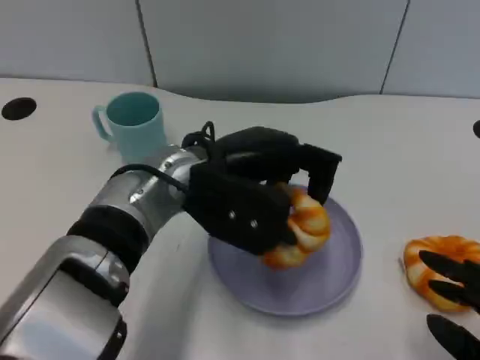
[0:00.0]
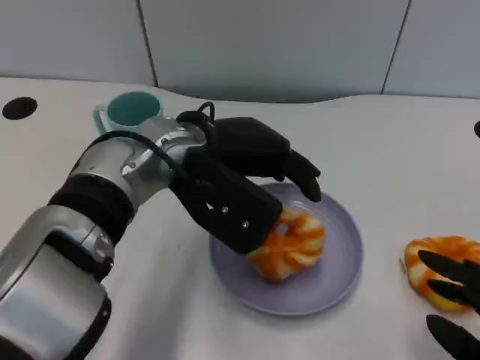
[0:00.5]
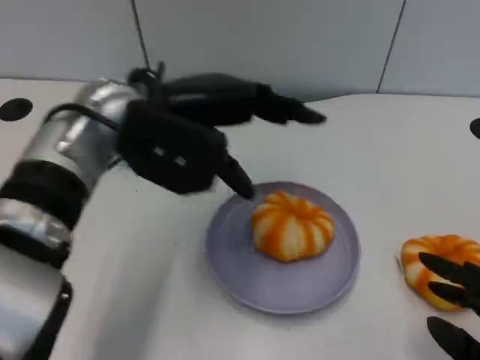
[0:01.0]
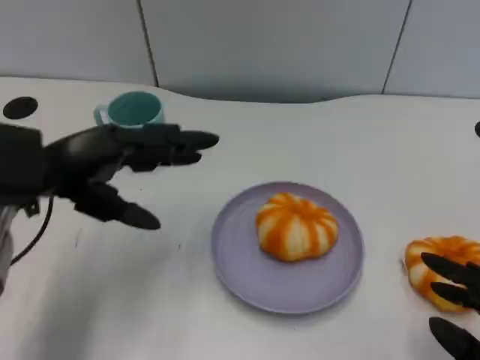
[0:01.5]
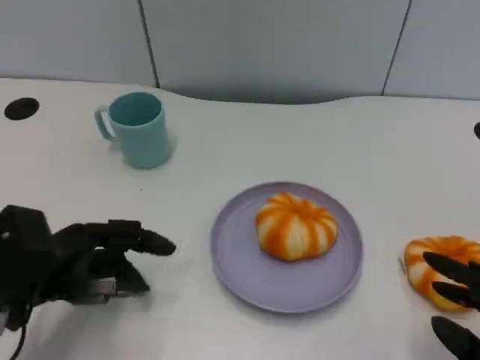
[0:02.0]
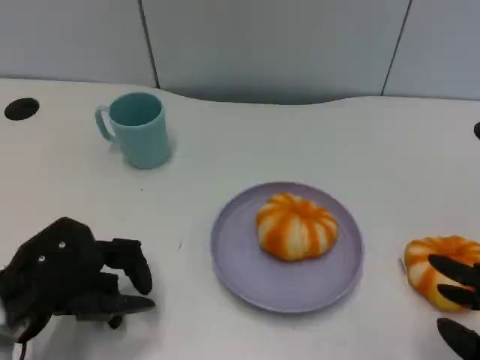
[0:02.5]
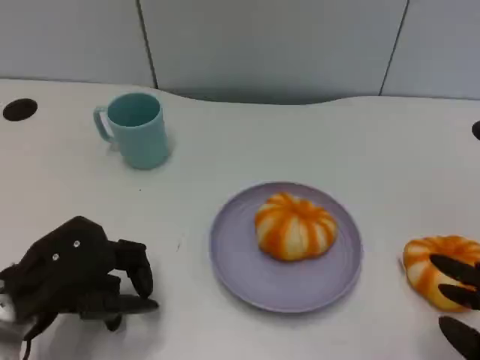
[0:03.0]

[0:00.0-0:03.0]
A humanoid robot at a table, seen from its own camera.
Task of the whole recording: Grasp the bread from the table and place it into the plate.
0:00.0 to 0:01.5: The left hand is displaced to the left by roughly 15 cm.
0:01.5 to 0:03.0: The left hand travels backward and downward by about 10 cm.

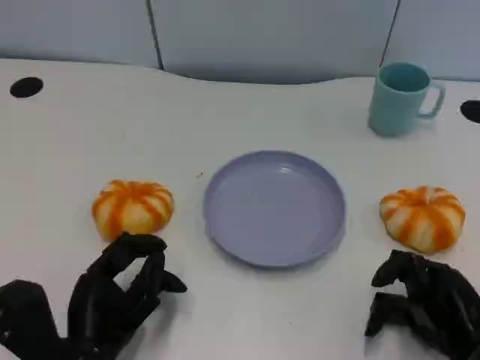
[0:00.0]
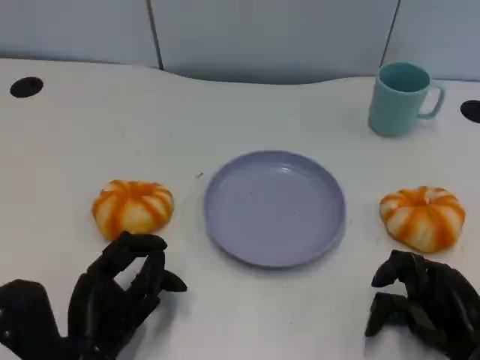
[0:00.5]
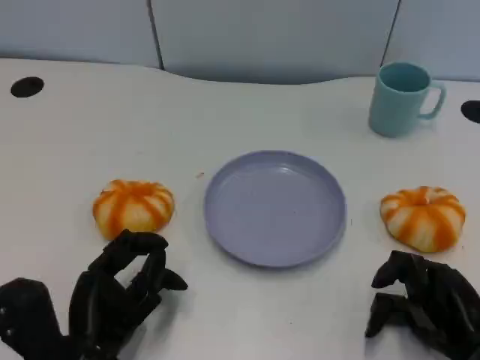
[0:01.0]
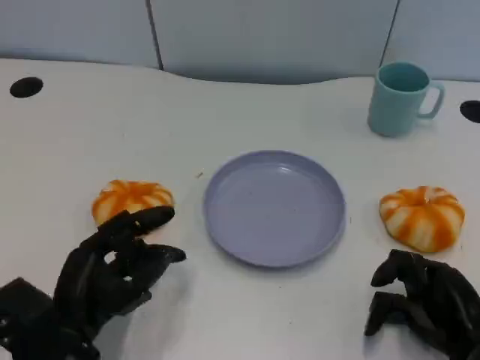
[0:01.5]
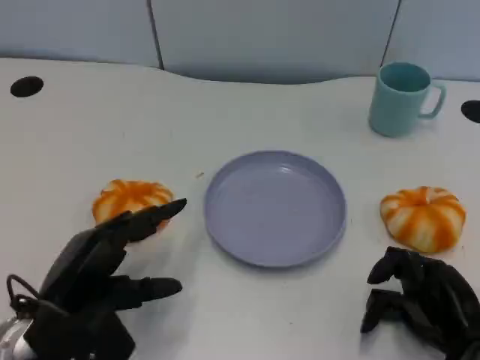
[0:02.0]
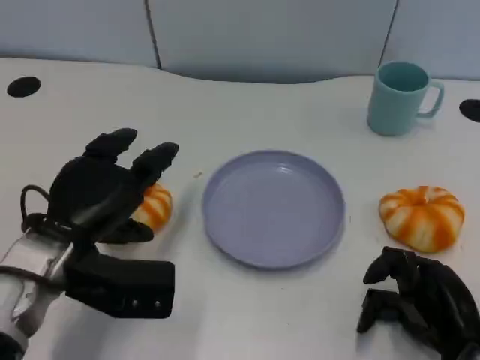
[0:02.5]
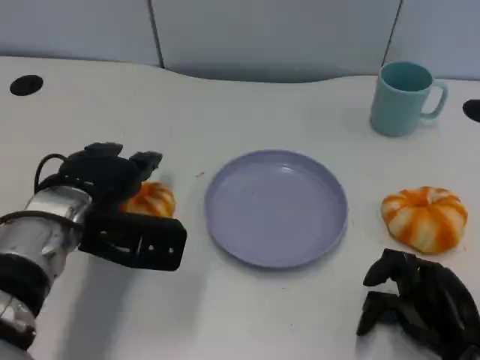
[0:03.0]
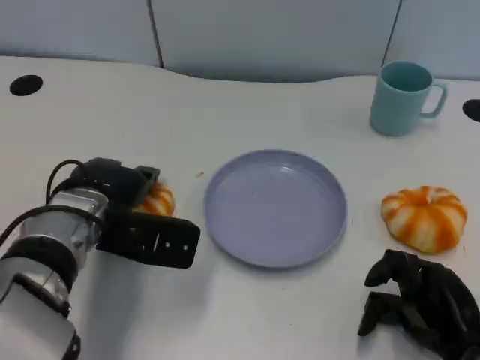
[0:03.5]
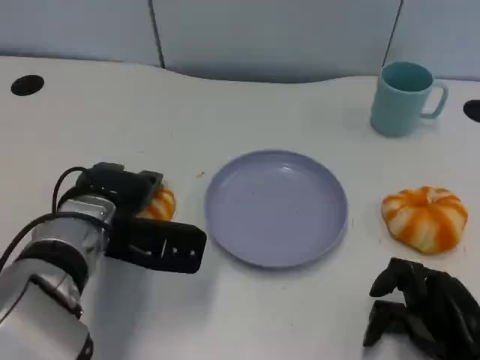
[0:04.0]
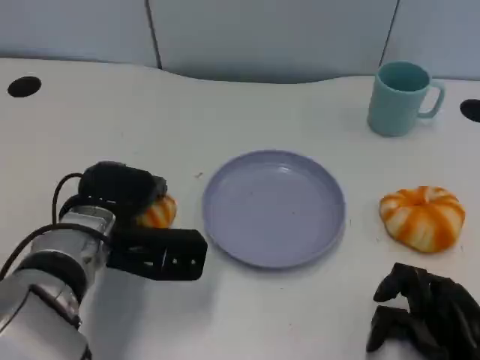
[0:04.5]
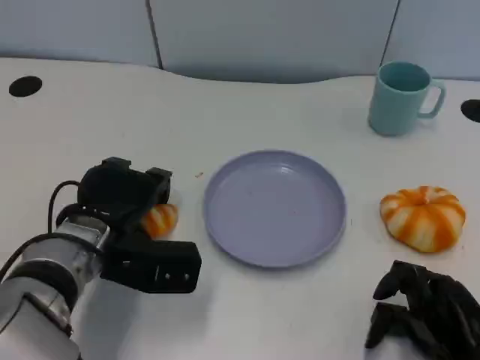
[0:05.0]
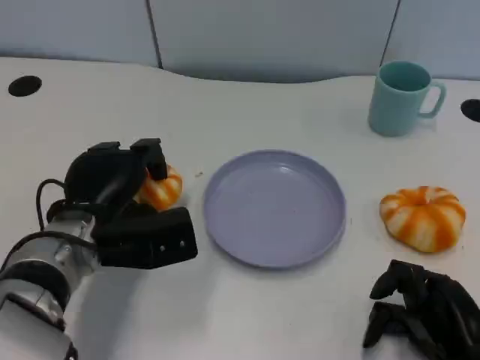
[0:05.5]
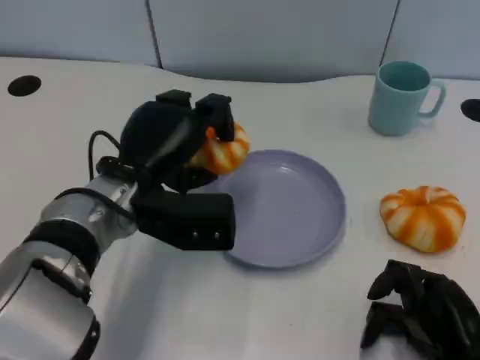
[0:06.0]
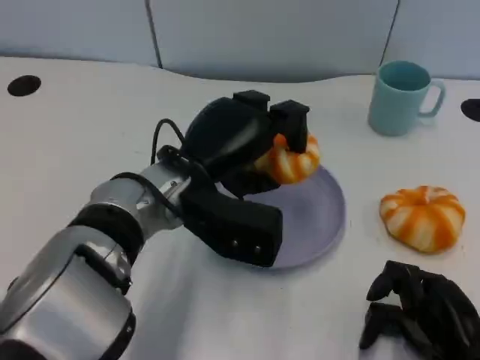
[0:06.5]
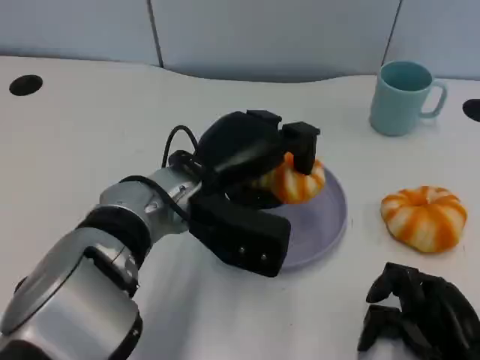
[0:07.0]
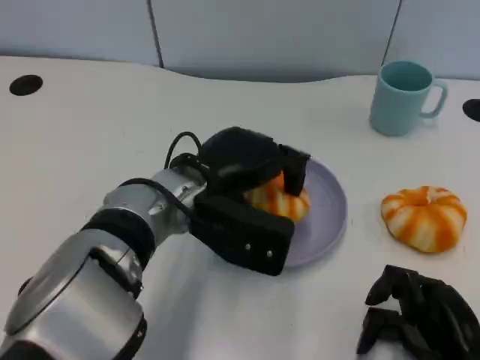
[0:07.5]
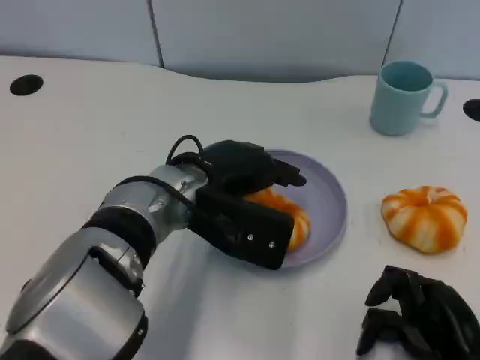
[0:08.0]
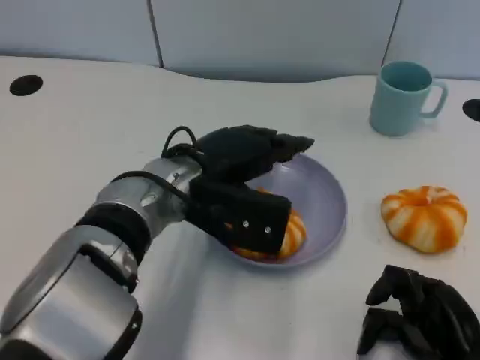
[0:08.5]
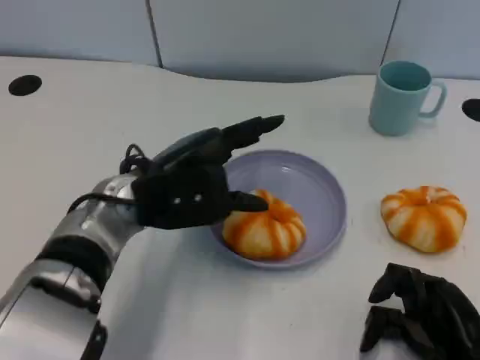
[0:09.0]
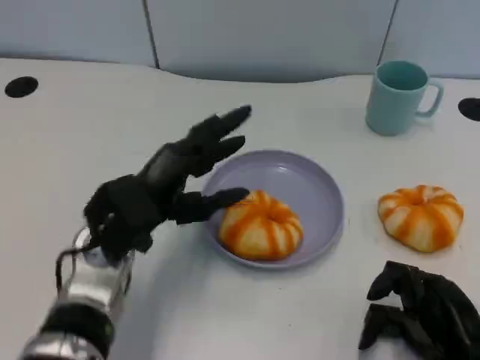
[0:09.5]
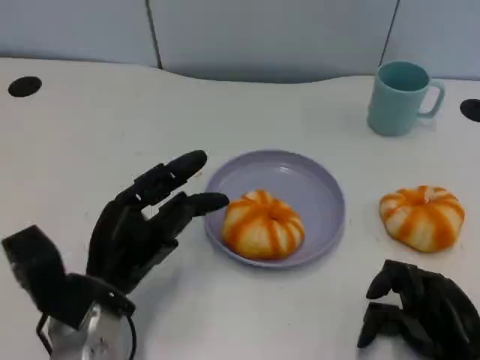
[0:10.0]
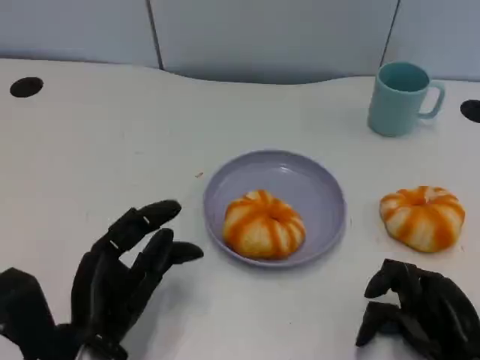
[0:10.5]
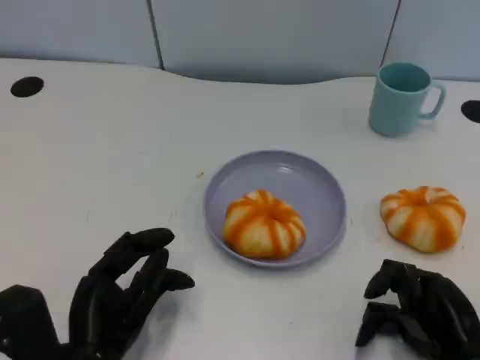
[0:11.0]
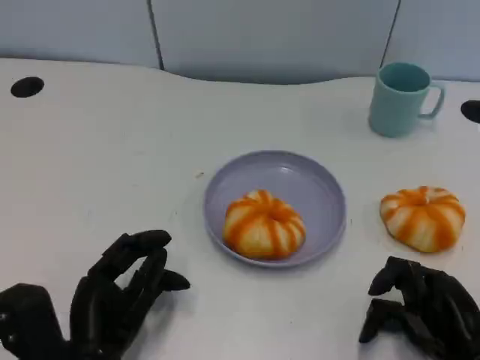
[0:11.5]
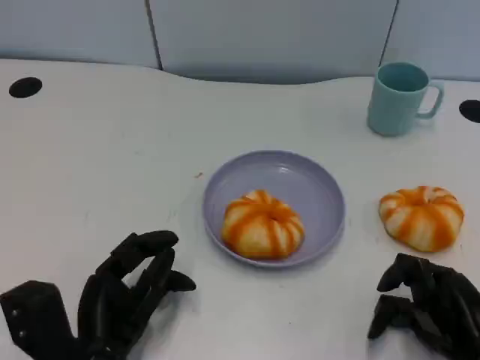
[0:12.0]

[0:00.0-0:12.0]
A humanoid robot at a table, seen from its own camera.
Task of the whole recording: Grasp the bread from the table and place it into the plate.
0:00.0 to 0:02.0: The left hand moves approximately 5 cm.
0:02.0 to 0:04.0: The left hand goes roughly 10 cm forward and to the right.
0:04.0 to 0:06.0: The left hand shifts by about 5 cm.
0:06.0 to 0:08.0: The left hand shifts approximately 5 cm to the right.
0:08.0 to 0:10.0: The left hand shifts about 15 cm to the left, backward and downward.
0:10.0 to 0:12.0: The left hand ends up some 5 cm from where it was.
